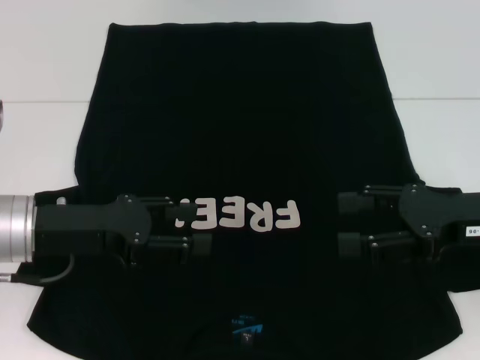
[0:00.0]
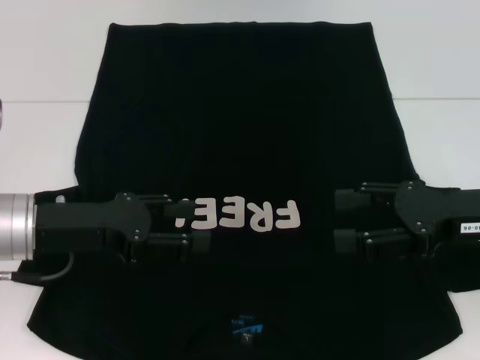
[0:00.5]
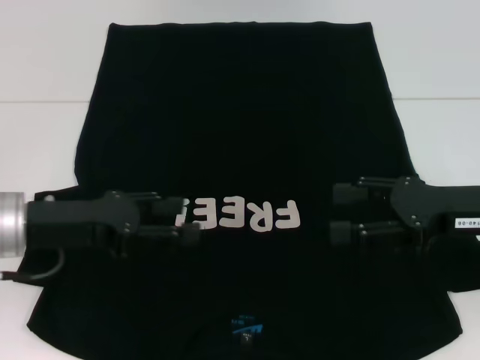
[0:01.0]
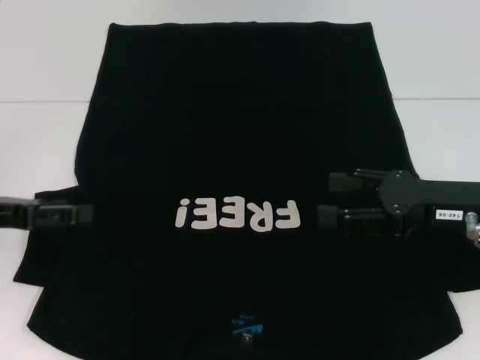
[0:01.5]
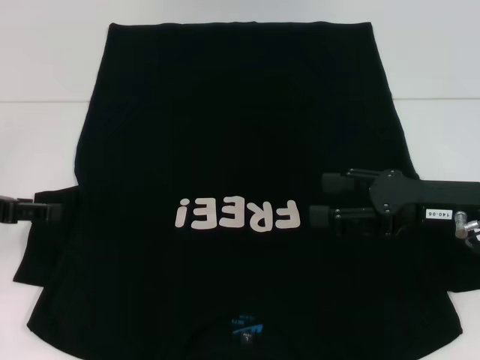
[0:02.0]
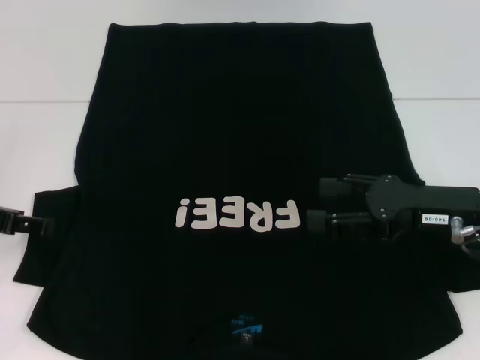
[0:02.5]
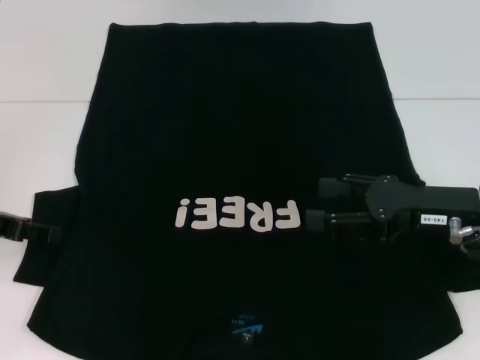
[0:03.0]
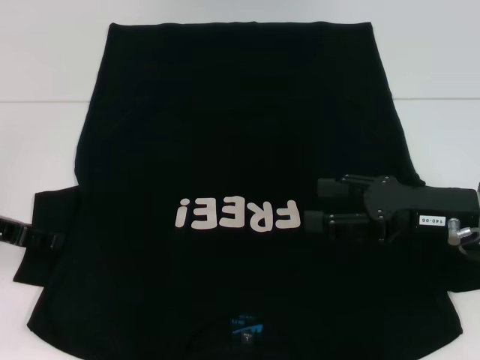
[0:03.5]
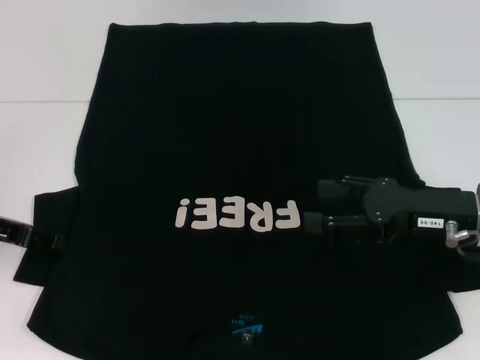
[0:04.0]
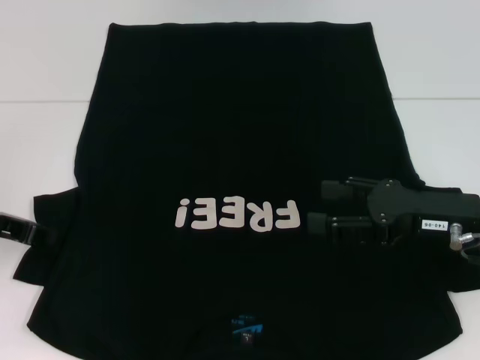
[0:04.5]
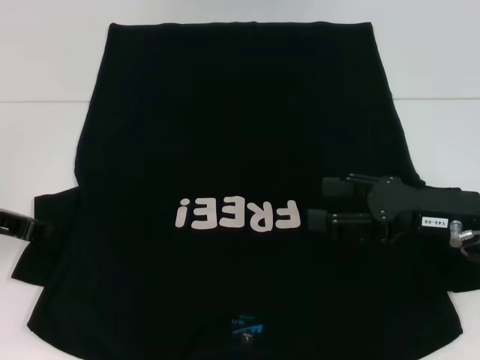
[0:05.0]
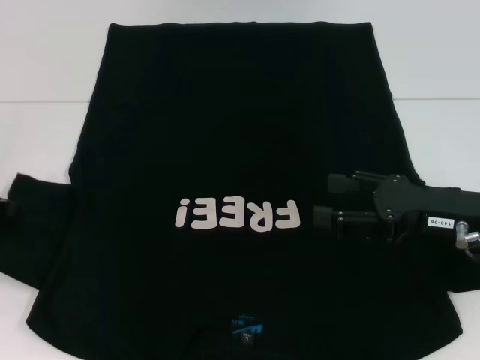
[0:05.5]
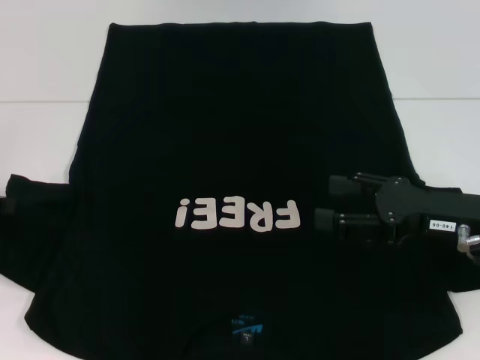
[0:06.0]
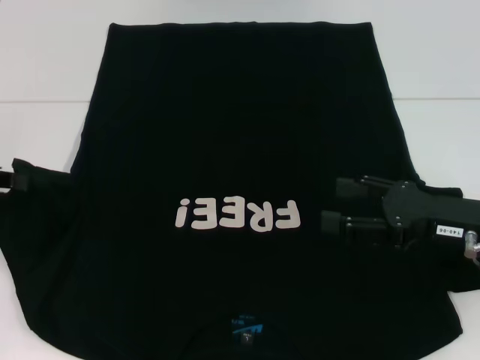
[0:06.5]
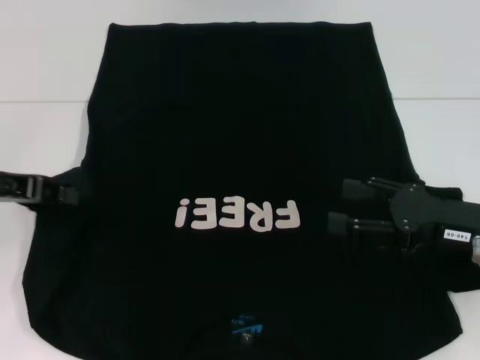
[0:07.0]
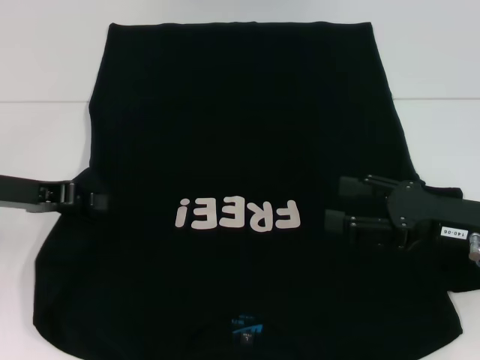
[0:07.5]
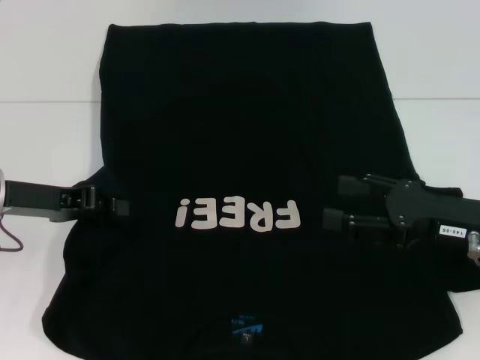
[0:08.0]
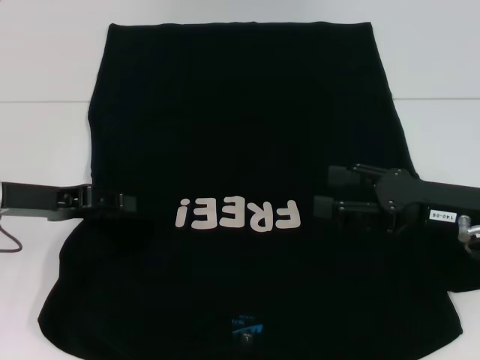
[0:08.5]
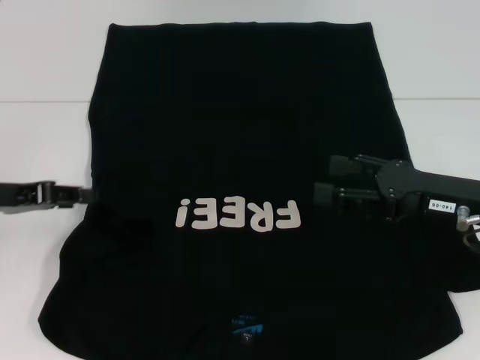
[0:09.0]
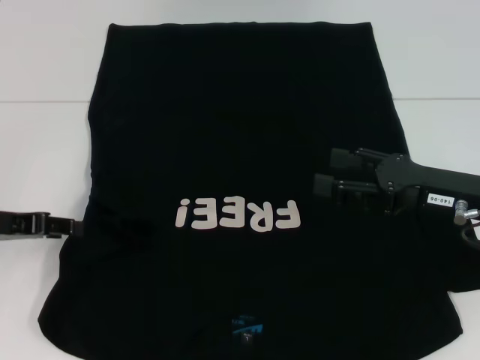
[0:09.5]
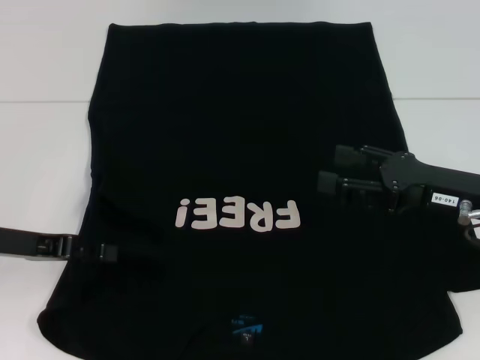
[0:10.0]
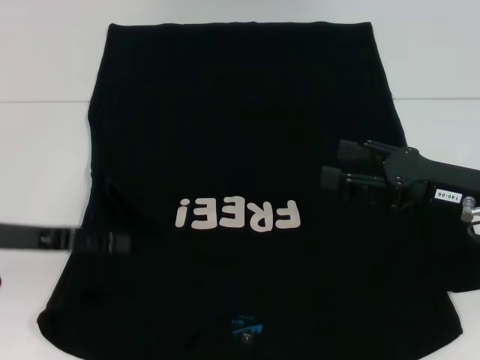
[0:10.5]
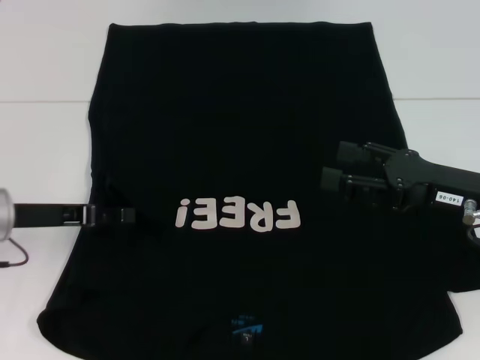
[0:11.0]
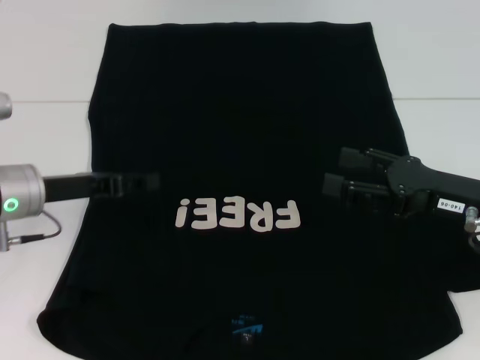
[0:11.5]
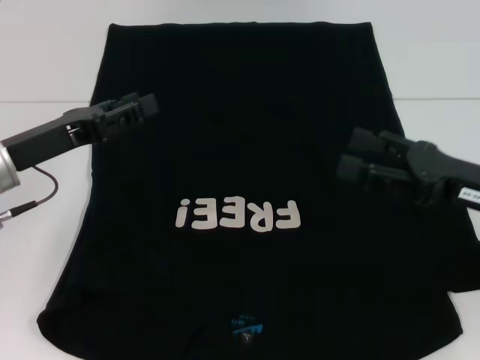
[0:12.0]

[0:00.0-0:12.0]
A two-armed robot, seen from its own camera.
Step, 0:00.0 to 0:09.5: Fold the bottom left sleeve with your left hand.
0:00.0 to 0:02.0: The left gripper goes some 10 cm to the left.
0:02.0 to 0:04.0: The grippers move only a little.
0:04.0 to 0:06.0: The left gripper shifts by some 5 cm, and closes its fingers.
0:06.0 to 0:08.0: The left gripper is displaced to the right by roughly 10 cm.
0:08.0 to 0:10.0: The left gripper opens.

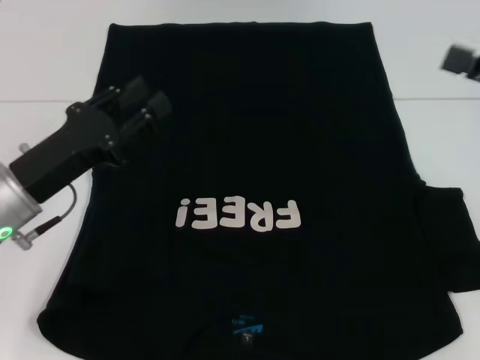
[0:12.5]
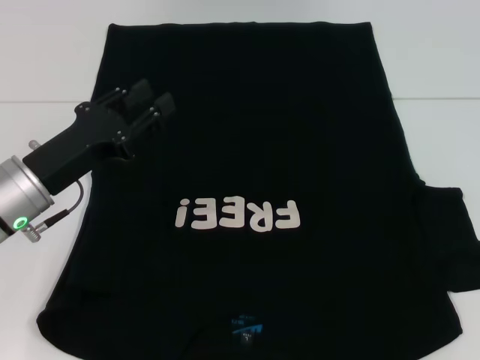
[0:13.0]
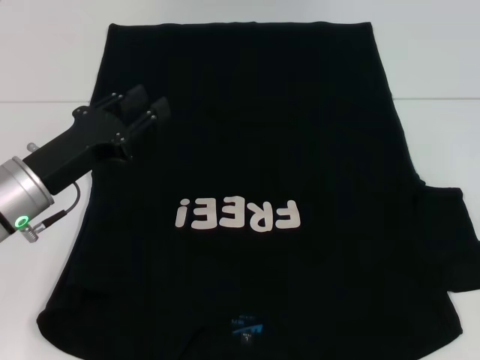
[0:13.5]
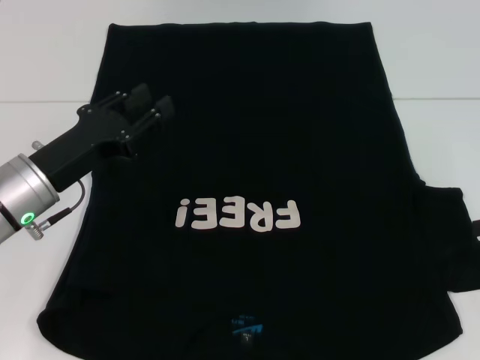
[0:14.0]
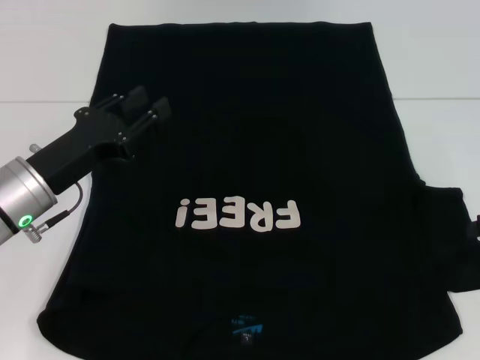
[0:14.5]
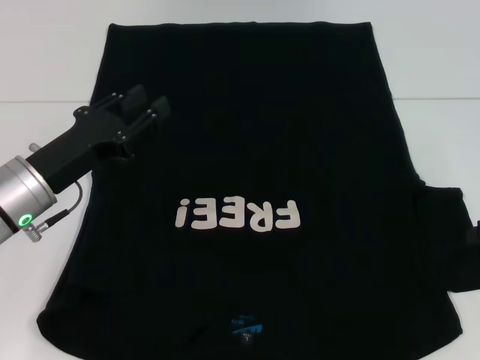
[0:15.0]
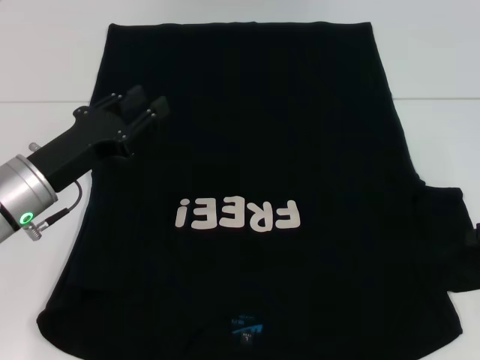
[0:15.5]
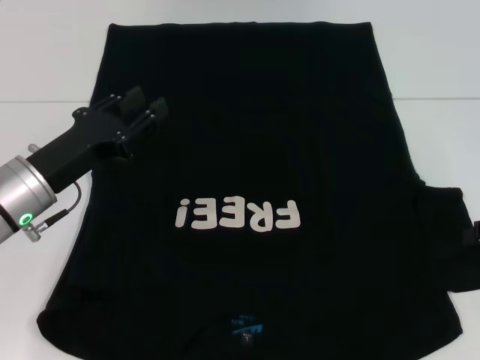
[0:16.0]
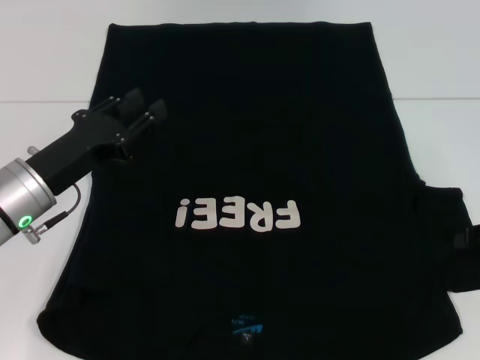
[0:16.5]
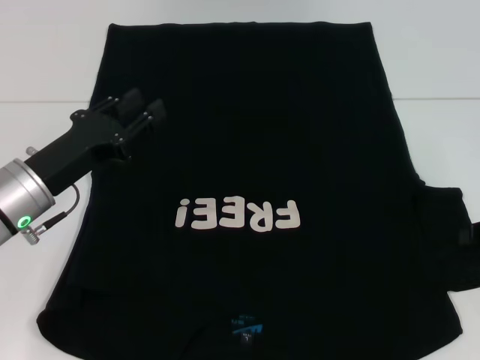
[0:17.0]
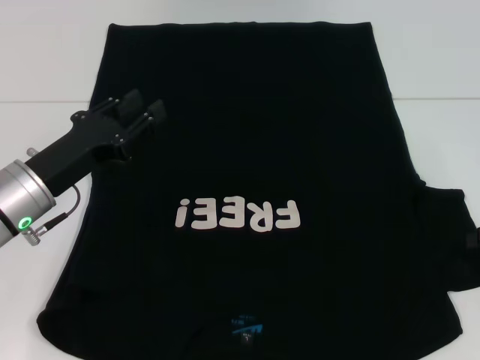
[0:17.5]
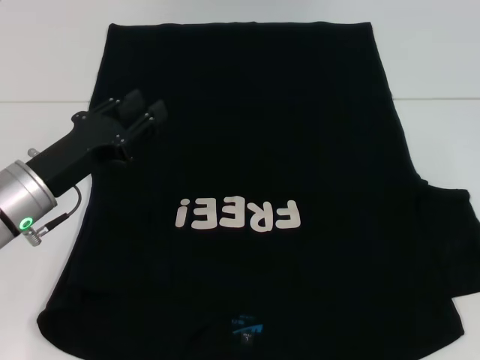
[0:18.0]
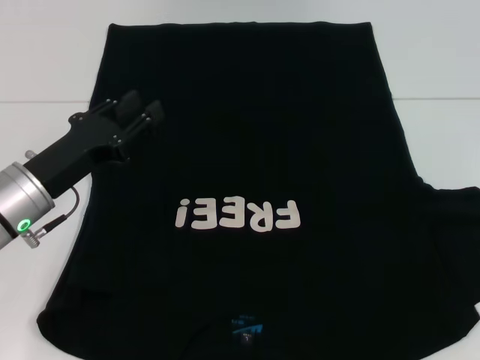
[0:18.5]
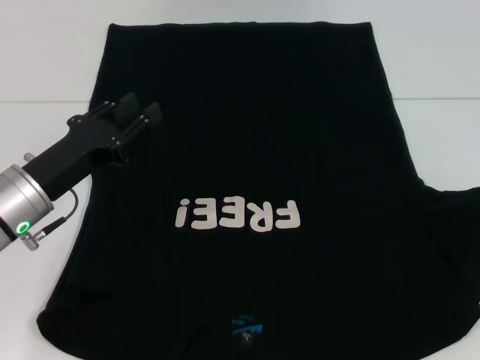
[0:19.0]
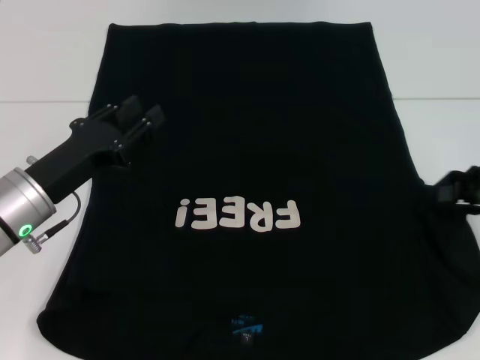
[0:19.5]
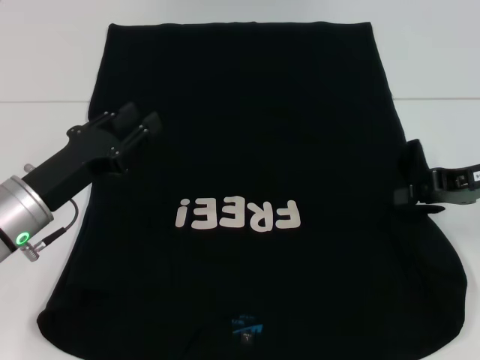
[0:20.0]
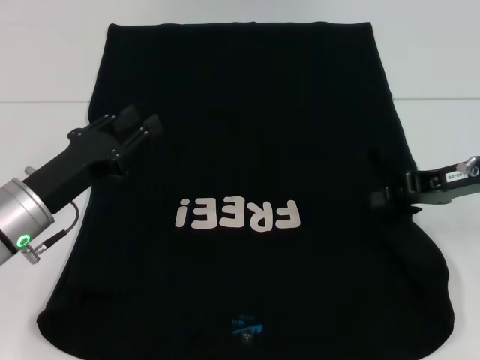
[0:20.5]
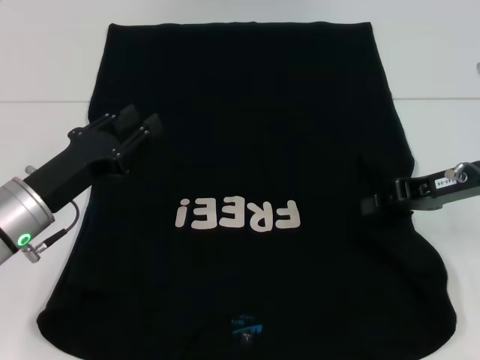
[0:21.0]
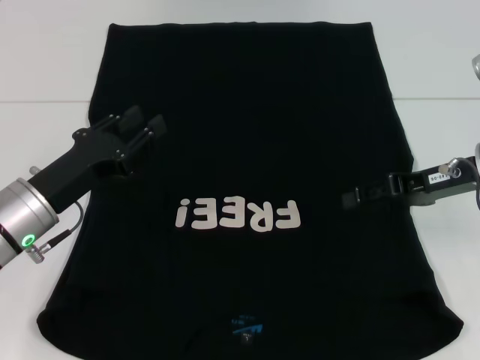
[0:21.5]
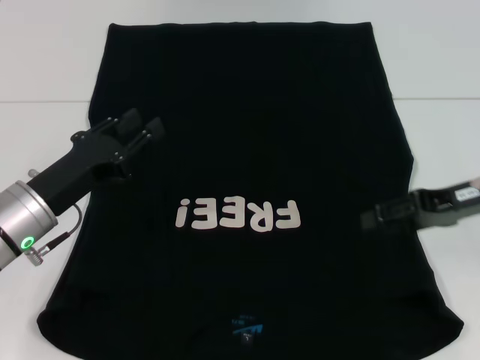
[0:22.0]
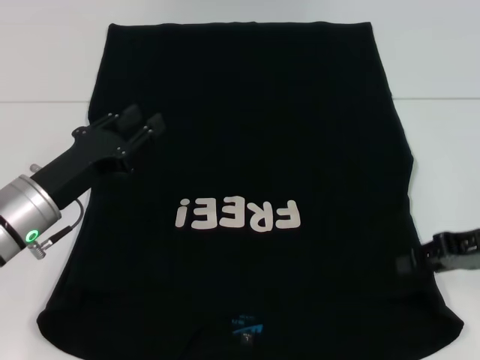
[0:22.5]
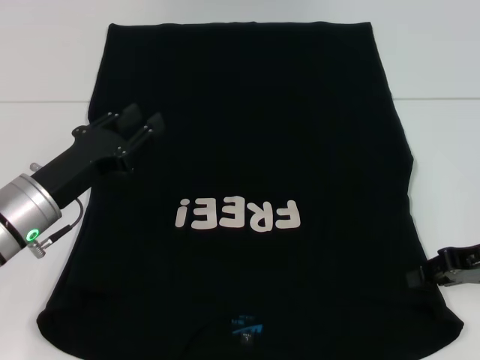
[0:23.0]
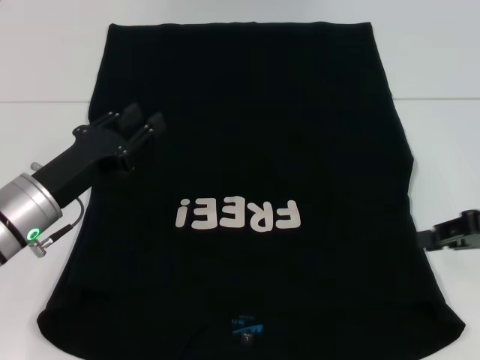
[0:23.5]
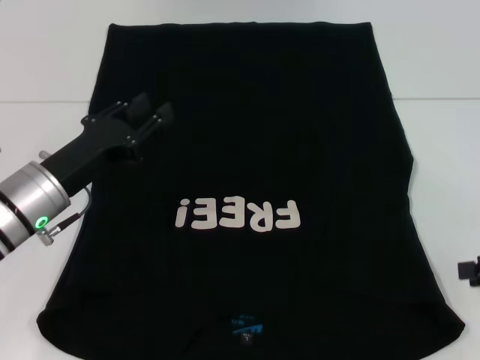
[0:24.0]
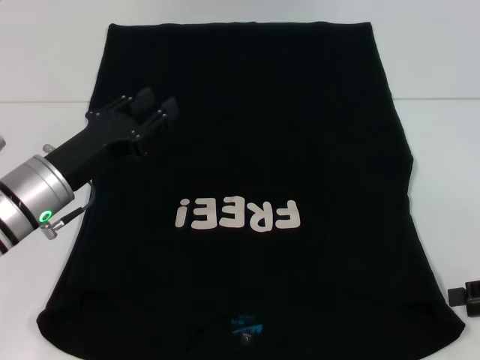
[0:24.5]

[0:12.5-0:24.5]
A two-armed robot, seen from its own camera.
Step, 0:12.5 to 0:22.0: Fold the bottom right sleeve with your right hand.
0:12.5 to 0:14.5: The right gripper travels downward by approximately 5 cm.
0:16.5 to 0:18.5: The right gripper closes.
0:18.5 to 0:20.5: The right gripper is displaced to the left by some 15 cm.
0:20.5 to 0:22.5: The right gripper ends up roughly 5 cm from where it was, and opens up.
0:22.5 to 0:24.5: The right gripper heads to the right and backward, covering some 10 cm, and closes, then opens again.

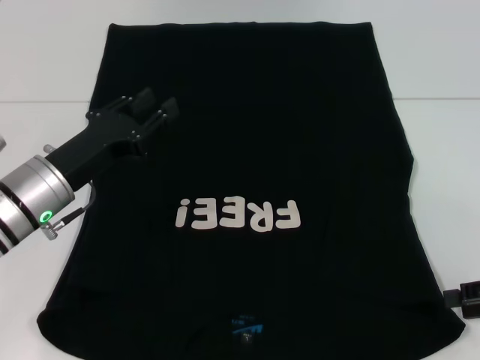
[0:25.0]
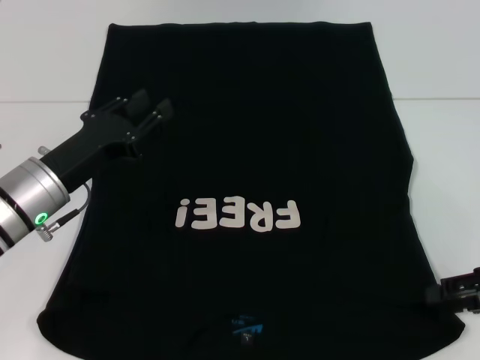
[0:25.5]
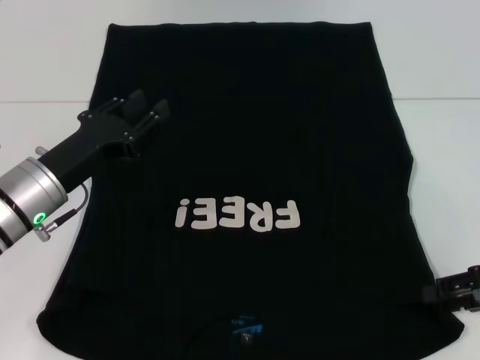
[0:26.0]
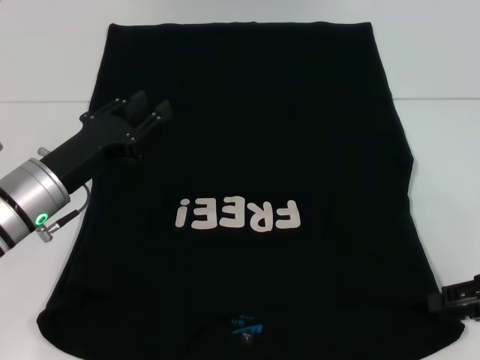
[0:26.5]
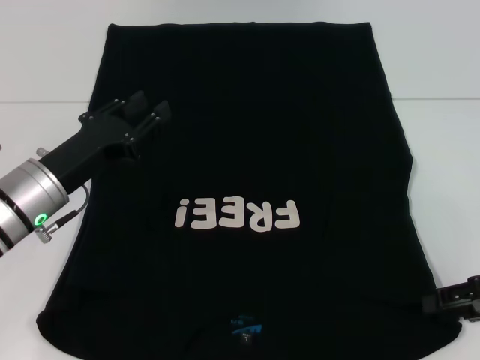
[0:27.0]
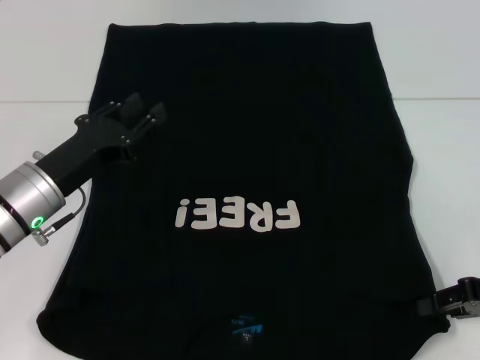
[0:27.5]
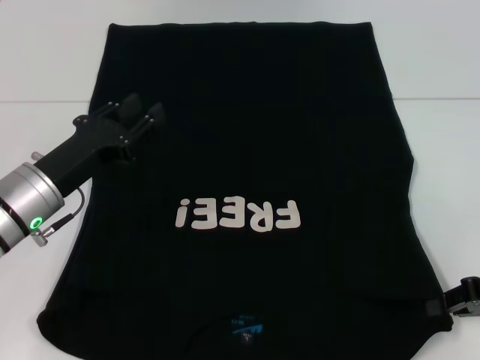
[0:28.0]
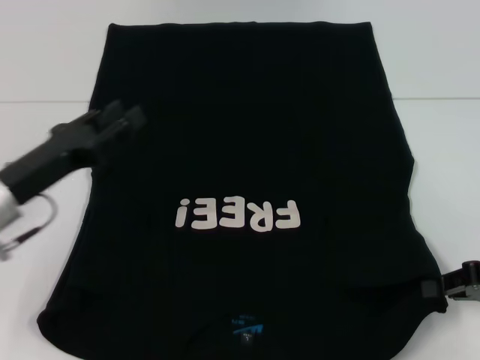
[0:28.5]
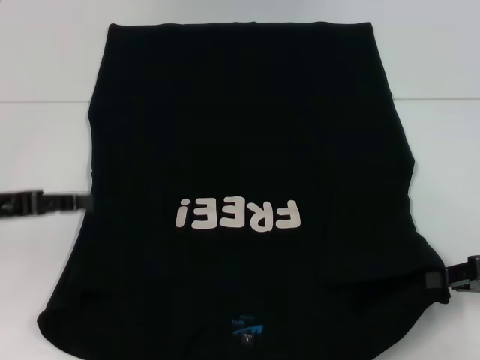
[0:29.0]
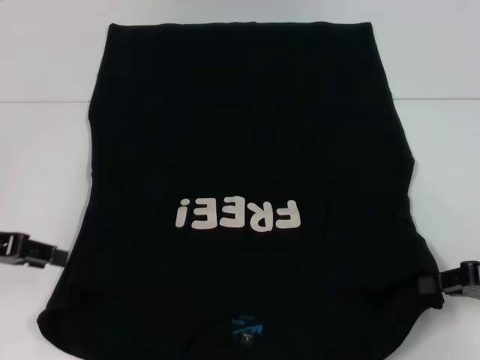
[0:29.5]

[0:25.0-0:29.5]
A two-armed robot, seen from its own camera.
0:25.0 to 0:27.0: The grippers move only a little.
0:27.0 to 0:29.5: The right gripper closes its fingers; the left gripper shifts approximately 10 cm to the left and upward.
